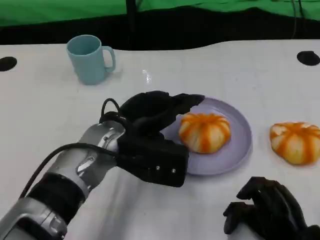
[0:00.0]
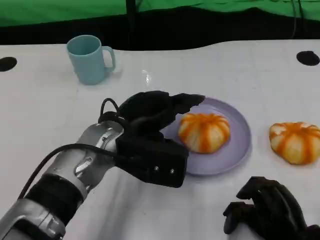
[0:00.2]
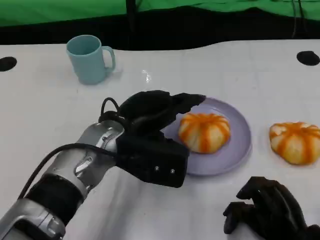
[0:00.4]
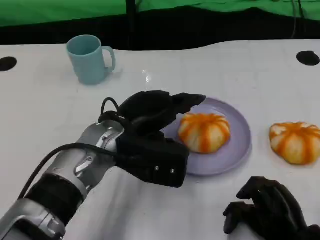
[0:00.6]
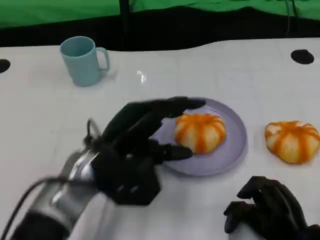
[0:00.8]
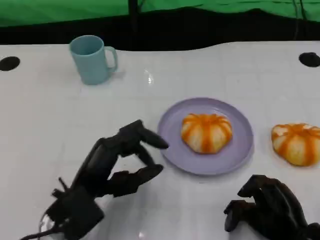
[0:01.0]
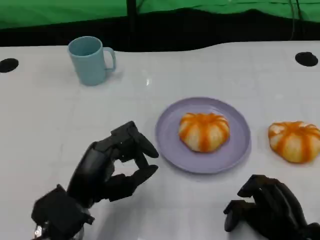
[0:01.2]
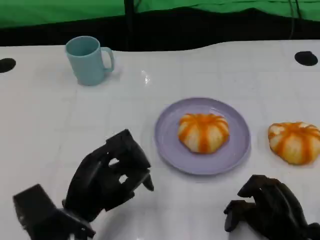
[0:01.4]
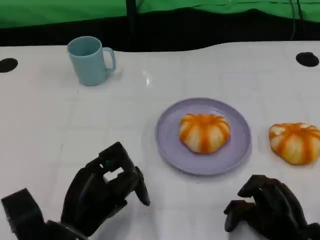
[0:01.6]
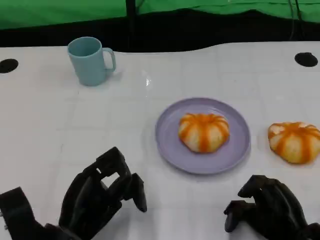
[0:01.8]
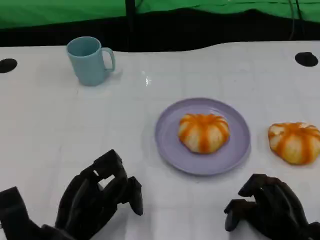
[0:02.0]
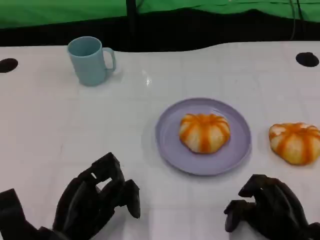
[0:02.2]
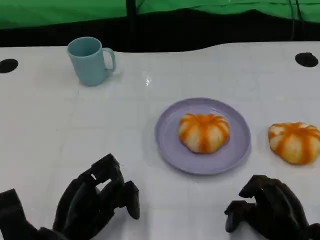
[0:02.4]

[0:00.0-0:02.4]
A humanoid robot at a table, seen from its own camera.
Task of the whole recording: Grasp the bread from the table and place it into the plate.
0:00.0 to 0:01.2: The left hand travels backward, to the left and downward by approximately 10 cm.
0:01.2 to 0:02.4: The left hand shifts by roughly 5 cm.

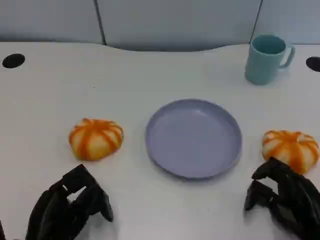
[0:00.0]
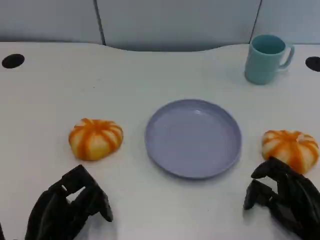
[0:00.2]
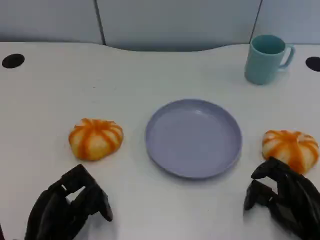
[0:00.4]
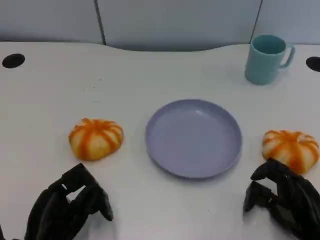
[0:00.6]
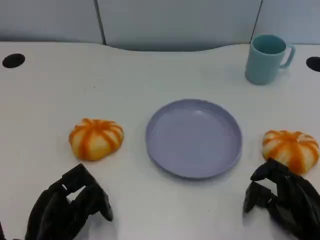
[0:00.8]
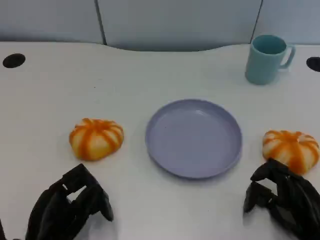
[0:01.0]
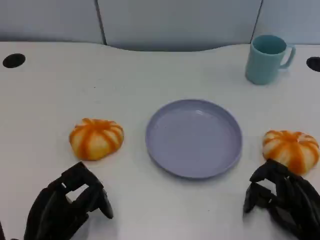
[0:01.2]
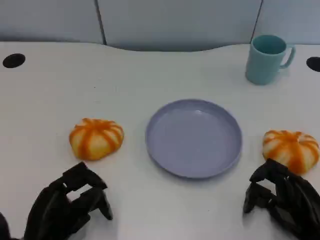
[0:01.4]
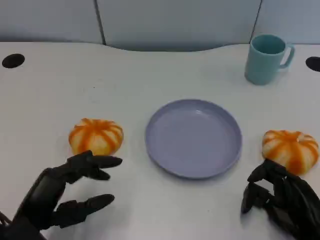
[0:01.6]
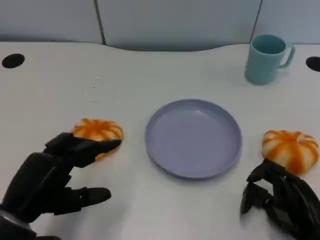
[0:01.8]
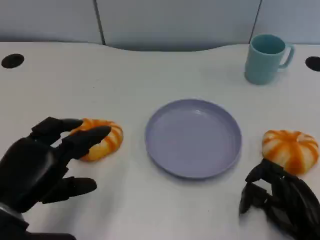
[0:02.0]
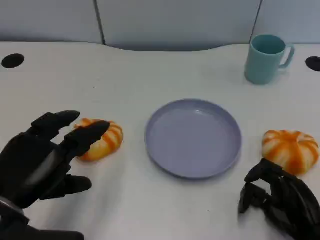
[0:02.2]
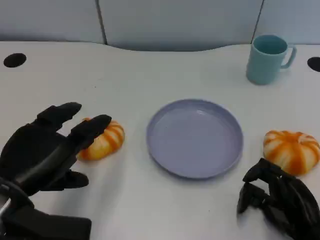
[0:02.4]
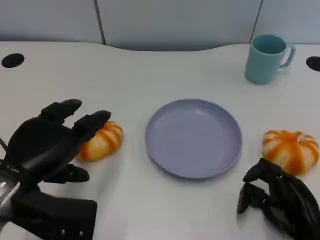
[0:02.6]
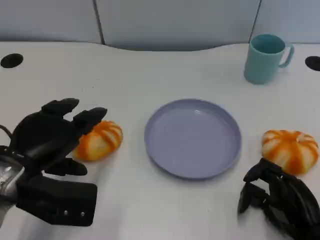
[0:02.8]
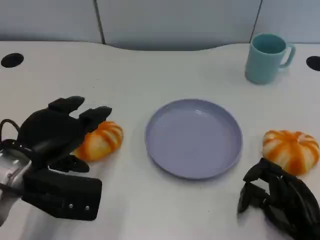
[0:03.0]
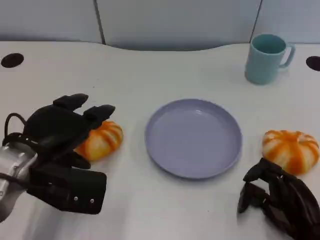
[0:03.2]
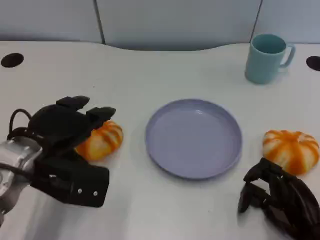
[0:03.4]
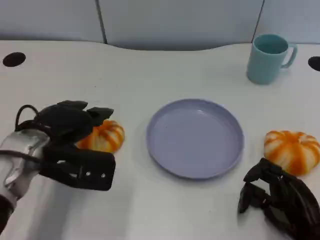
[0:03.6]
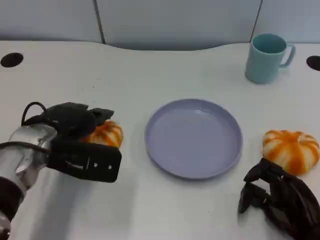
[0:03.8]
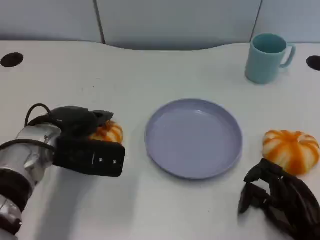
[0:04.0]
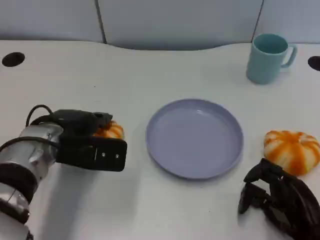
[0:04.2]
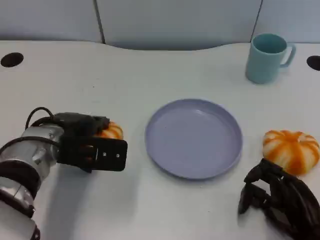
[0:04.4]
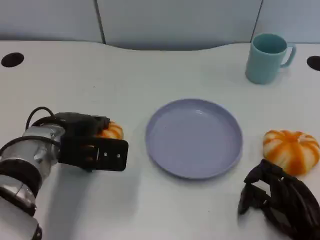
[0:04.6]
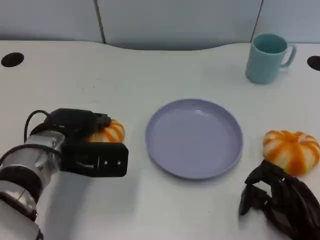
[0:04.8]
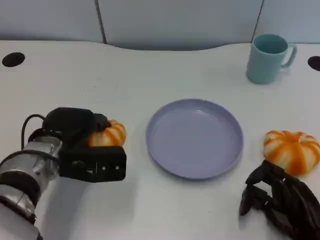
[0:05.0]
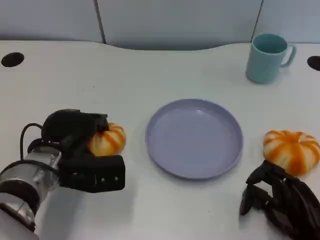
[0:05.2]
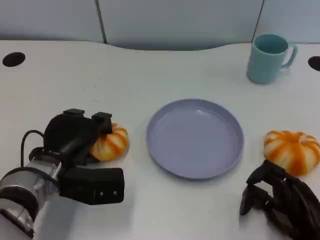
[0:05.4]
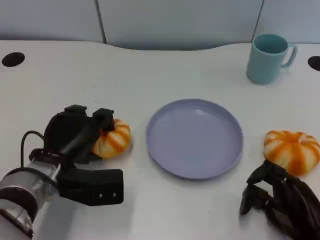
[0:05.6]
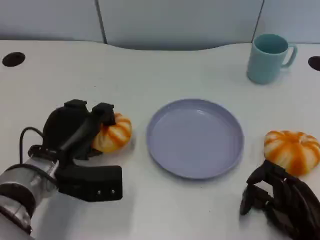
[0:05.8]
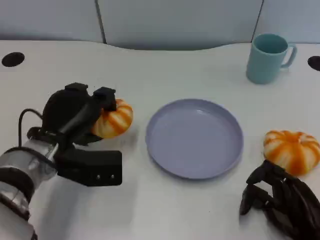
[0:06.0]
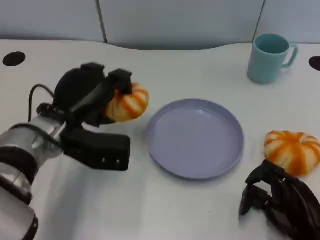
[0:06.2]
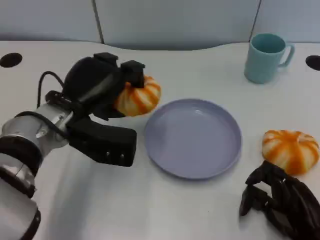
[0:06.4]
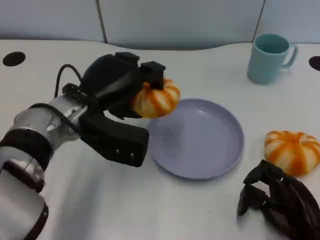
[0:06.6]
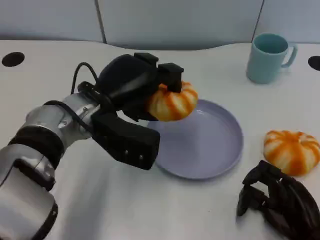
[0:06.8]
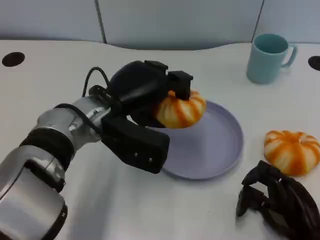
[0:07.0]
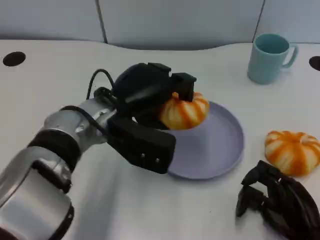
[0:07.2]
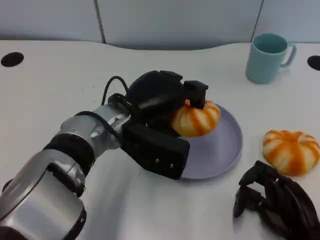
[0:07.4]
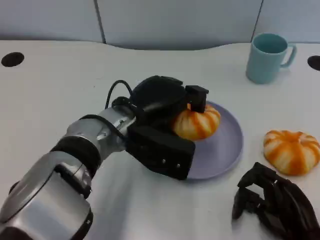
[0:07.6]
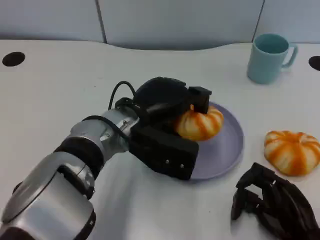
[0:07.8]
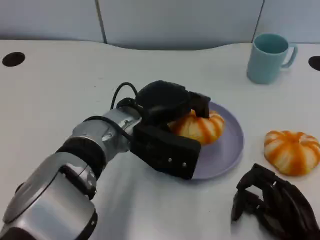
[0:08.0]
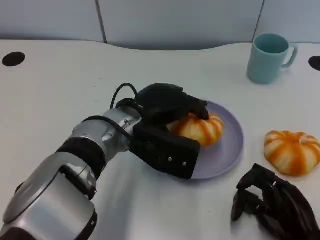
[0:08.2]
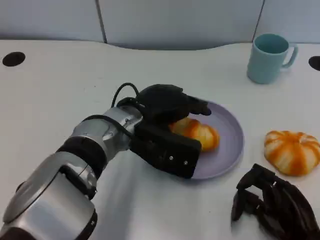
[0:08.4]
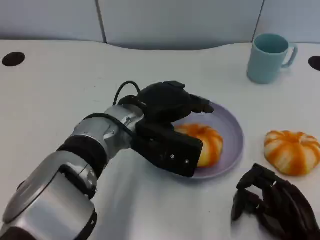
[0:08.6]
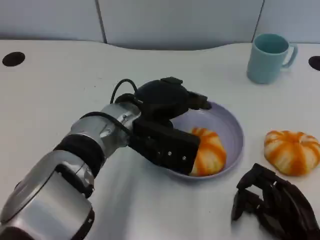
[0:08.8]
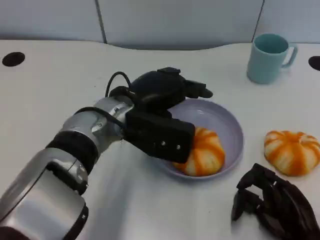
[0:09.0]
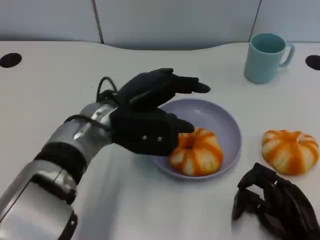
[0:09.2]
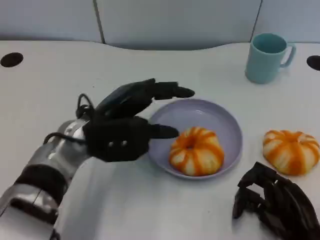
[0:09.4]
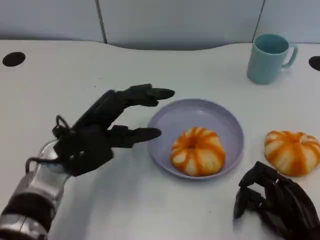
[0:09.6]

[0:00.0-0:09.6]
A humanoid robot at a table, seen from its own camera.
Task of the whole recording: Grasp the bread from the table and place it into the plate.
0:00.0 to 0:01.6: The left hand ends up about 5 cm from where it was.
0:01.6 to 0:03.2: The left hand shifts roughly 10 cm forward and upward.
0:03.2 to 0:04.8: The left hand moves about 5 cm.
0:04.8 to 0:06.4: The left hand heads upward, covering about 5 cm.
0:06.4 to 0:08.0: The left hand heads to the right, covering roughly 10 cm.
0:08.0 to 0:09.6: The left hand moves to the left, approximately 10 cm.

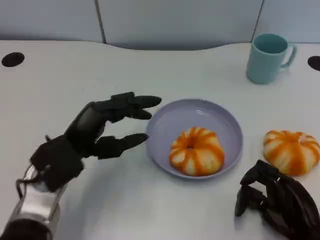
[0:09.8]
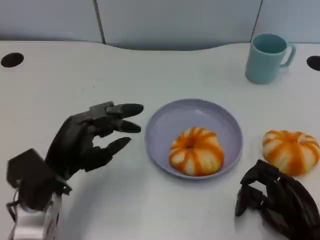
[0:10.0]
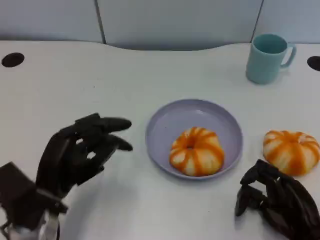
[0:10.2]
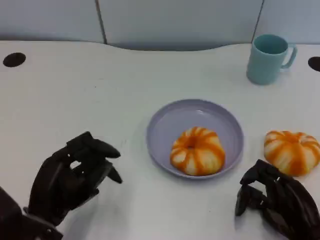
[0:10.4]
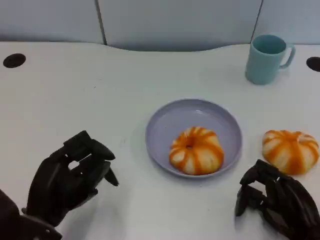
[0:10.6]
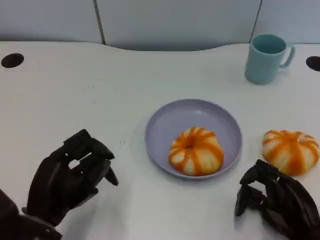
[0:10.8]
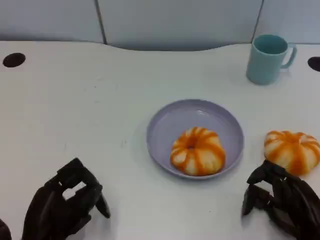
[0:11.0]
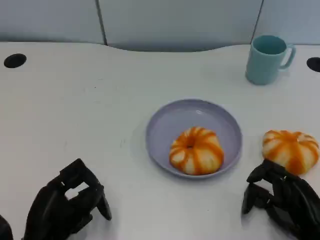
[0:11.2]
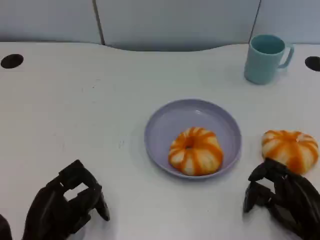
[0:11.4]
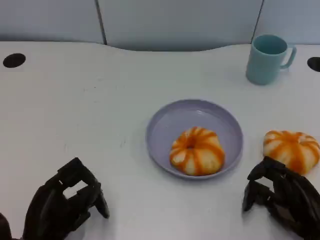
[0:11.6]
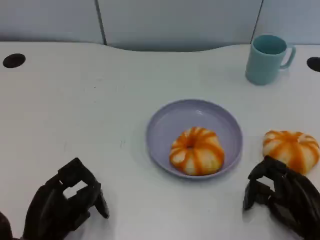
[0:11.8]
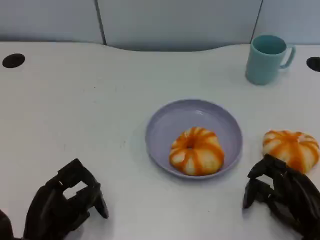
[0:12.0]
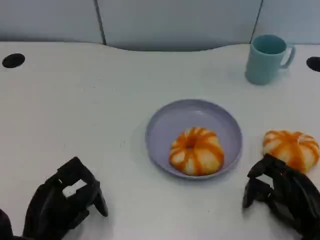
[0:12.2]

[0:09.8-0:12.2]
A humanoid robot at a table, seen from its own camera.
Task of the whole recording: Grasp the bread from the table and place it into the plate.
0:09.8 to 0:11.0: The left hand is displaced backward and downward by some 10 cm.
0:11.0 to 0:12.2: The hands stay close to where they were, moving slightly.

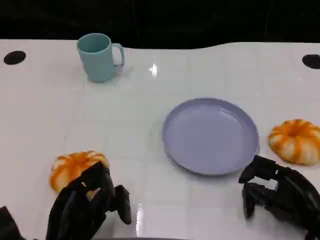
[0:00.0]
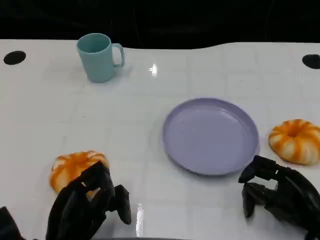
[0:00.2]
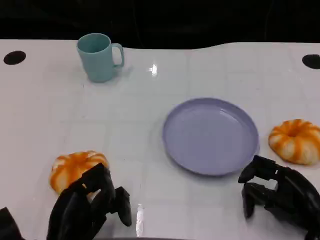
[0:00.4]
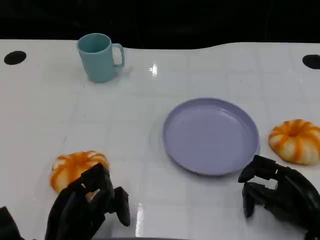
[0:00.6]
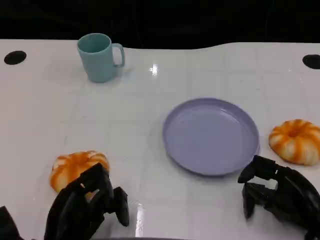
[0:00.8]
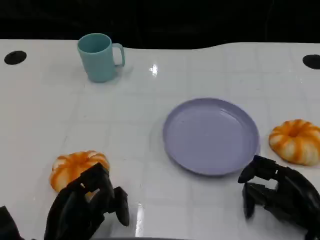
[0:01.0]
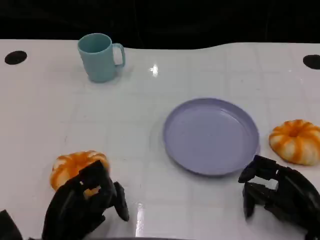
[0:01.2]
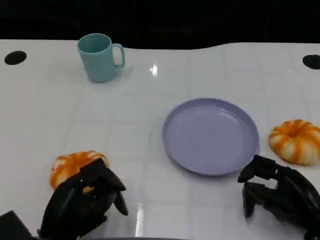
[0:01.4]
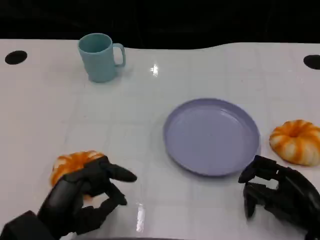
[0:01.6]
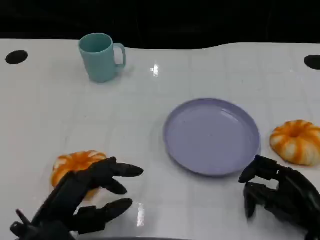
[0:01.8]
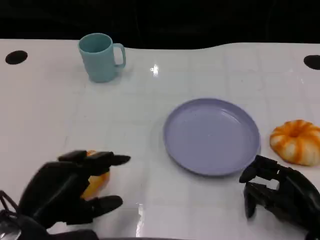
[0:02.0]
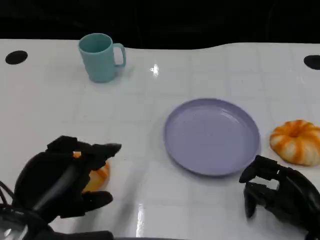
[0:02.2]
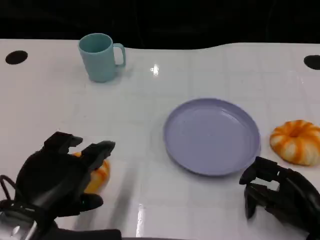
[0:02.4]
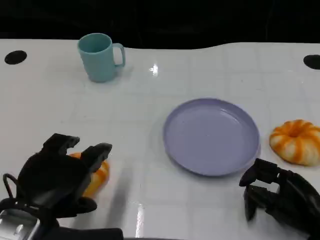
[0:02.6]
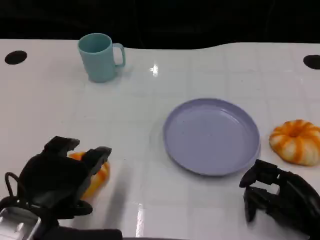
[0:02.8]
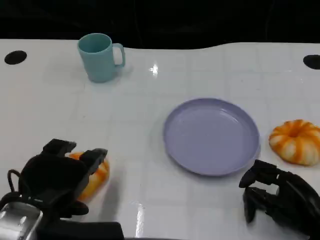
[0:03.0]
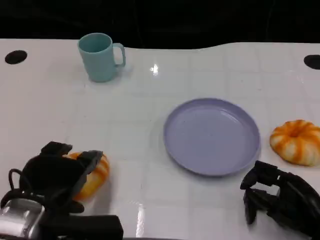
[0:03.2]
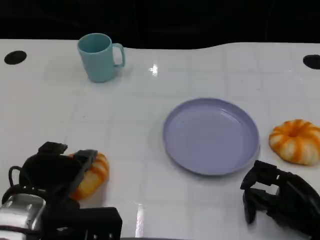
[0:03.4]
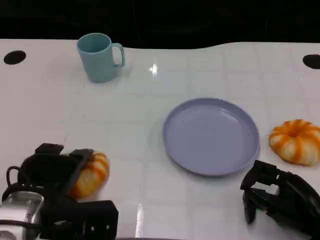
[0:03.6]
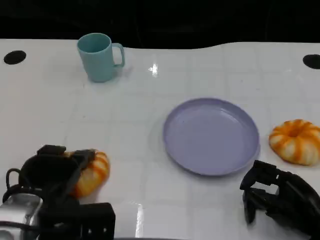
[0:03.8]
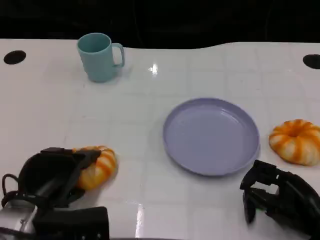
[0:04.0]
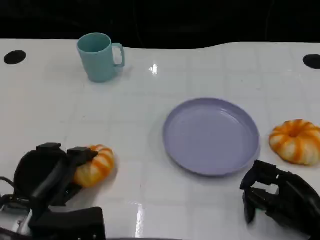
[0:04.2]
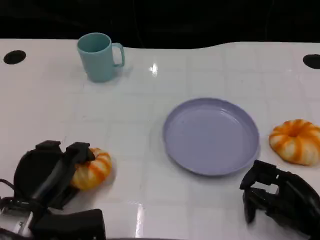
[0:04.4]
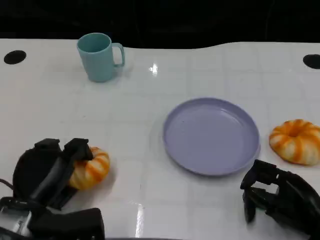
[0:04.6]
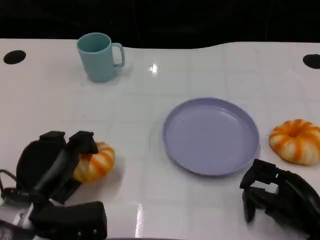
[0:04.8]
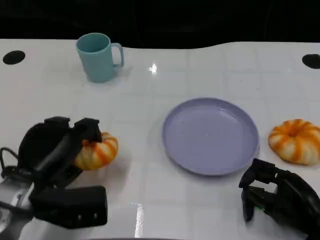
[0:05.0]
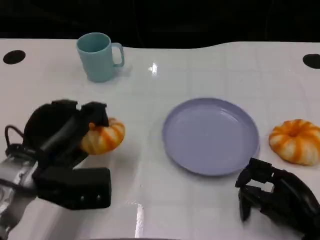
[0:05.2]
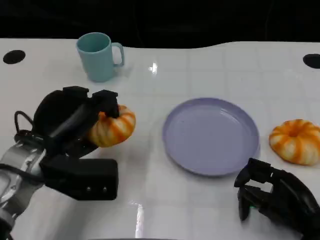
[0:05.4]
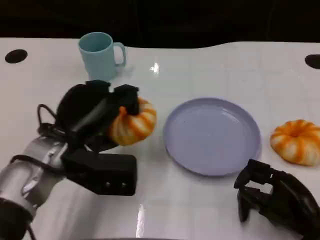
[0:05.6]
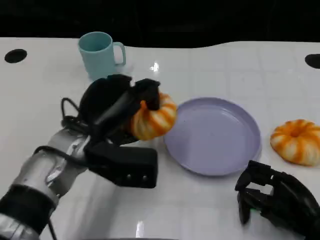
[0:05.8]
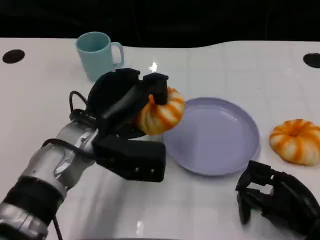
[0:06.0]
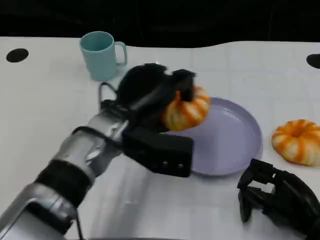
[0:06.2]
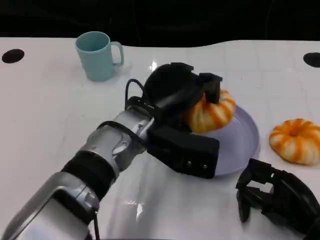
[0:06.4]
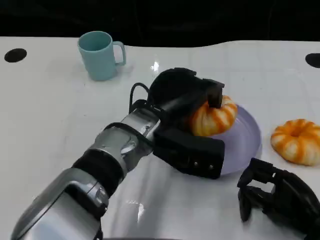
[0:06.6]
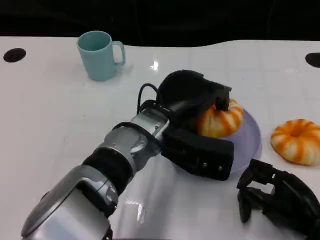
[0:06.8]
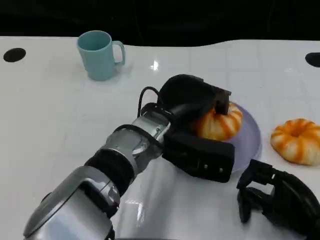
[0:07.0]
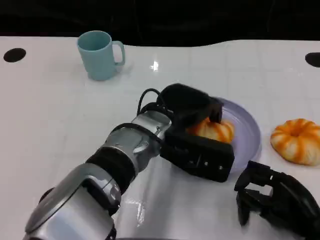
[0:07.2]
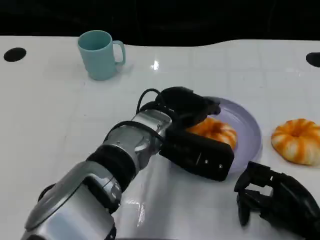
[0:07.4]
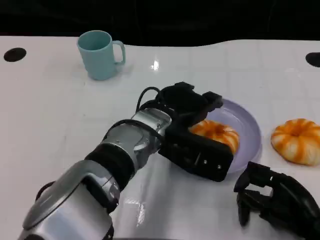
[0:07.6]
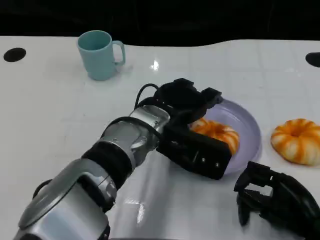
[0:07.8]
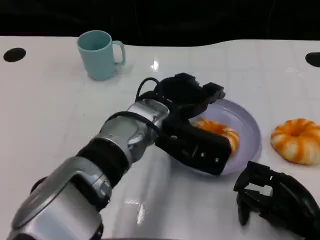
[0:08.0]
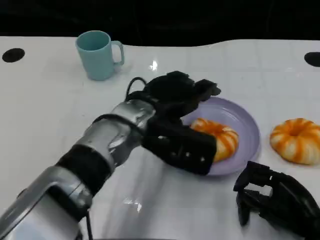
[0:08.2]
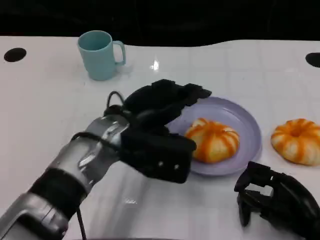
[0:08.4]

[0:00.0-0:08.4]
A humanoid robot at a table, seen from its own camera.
Task of the whole recording: Grasp the bread from the table and place it into the plate.
0:01.4 to 0:02.8: The left hand moves upward, about 10 cm.
0:02.8 to 0:04.2: The left hand moves downward, roughly 10 cm.
0:04.2 to 0:05.6: The left hand goes approximately 10 cm upward, forward and to the right.
0:05.6 to 0:07.0: The left hand shifts about 15 cm to the right.
0:07.0 to 0:08.4: The left hand shifts about 5 cm to the left.
